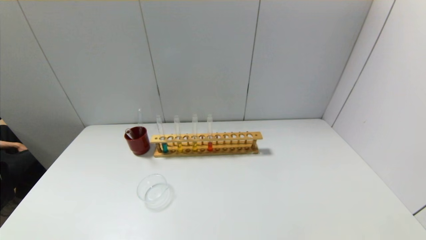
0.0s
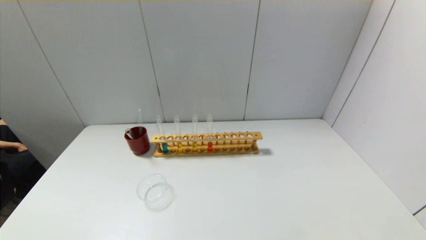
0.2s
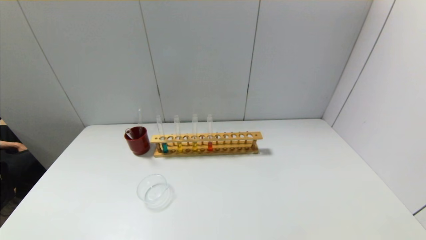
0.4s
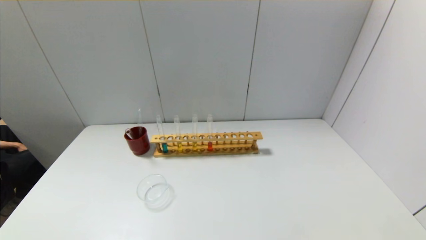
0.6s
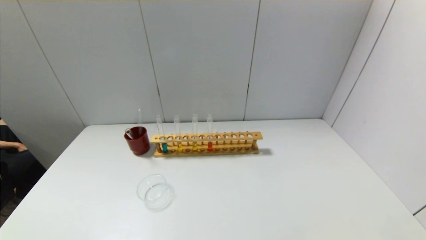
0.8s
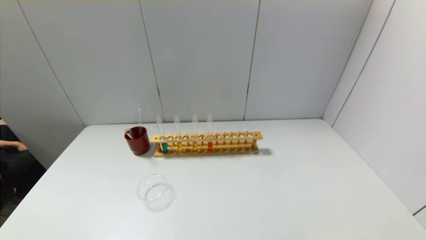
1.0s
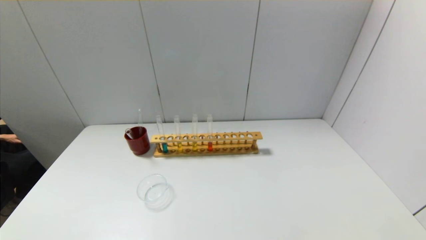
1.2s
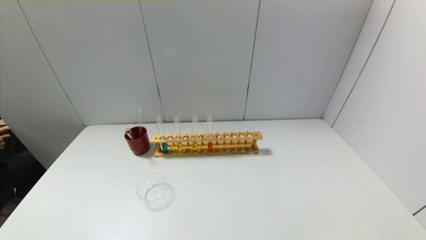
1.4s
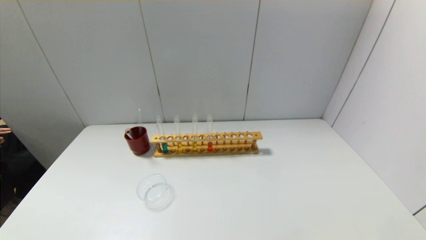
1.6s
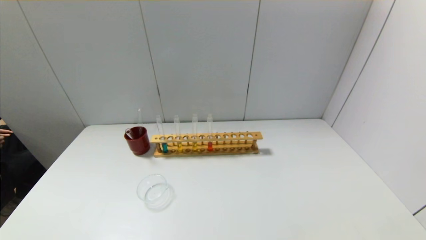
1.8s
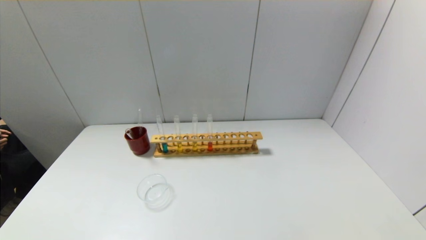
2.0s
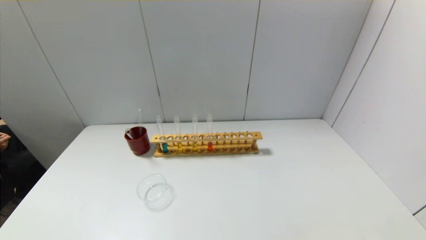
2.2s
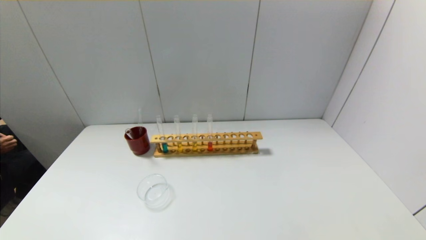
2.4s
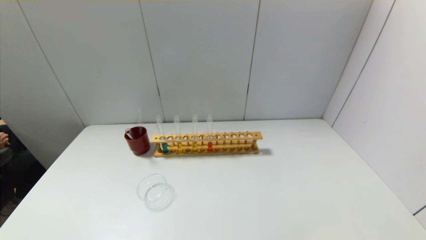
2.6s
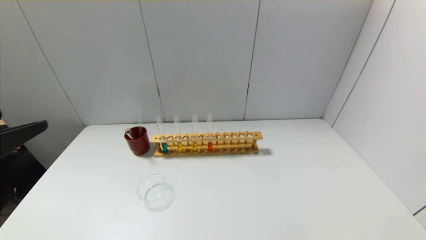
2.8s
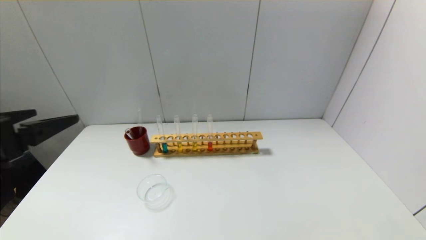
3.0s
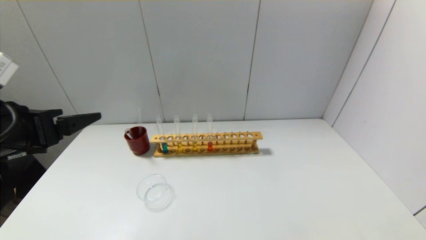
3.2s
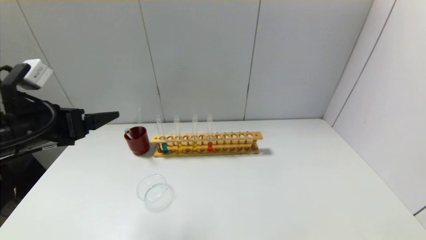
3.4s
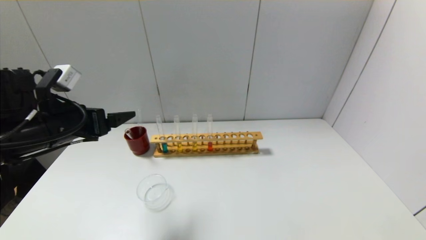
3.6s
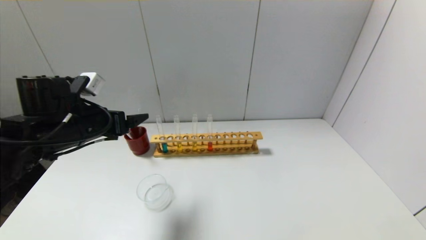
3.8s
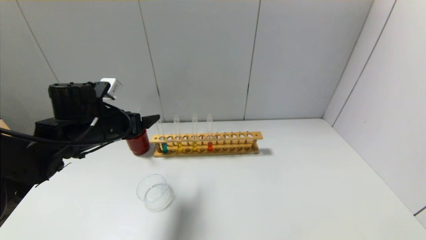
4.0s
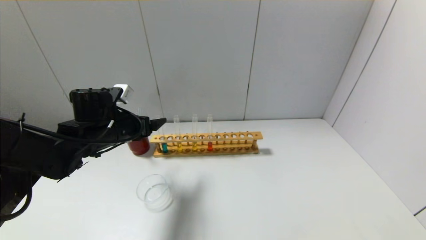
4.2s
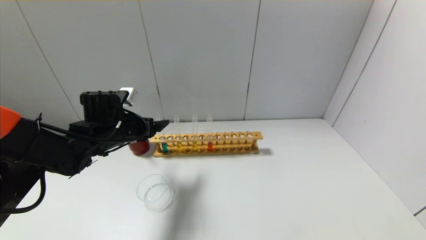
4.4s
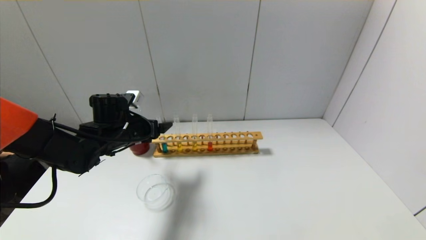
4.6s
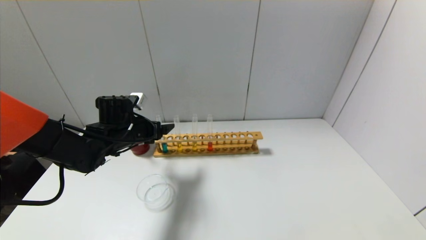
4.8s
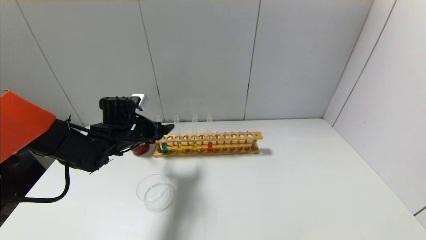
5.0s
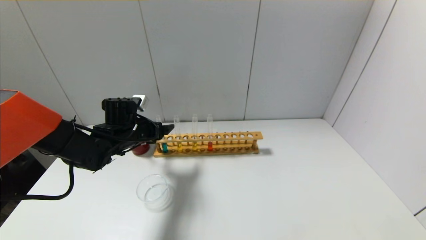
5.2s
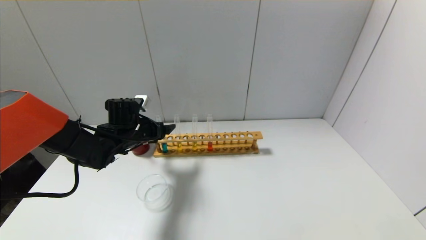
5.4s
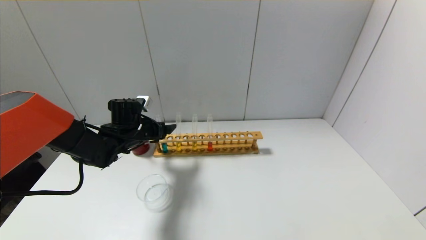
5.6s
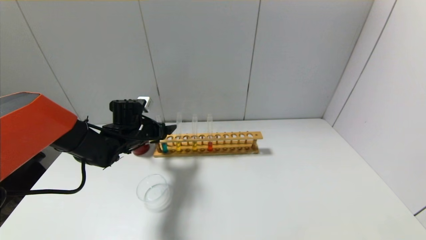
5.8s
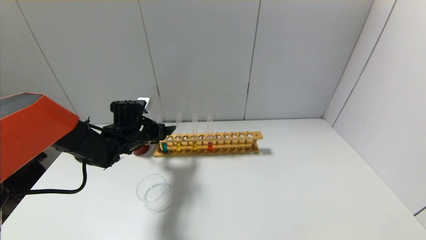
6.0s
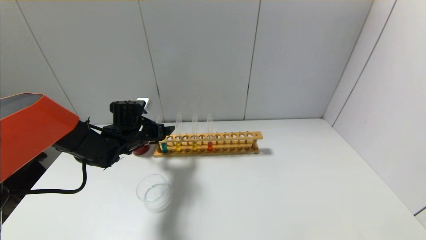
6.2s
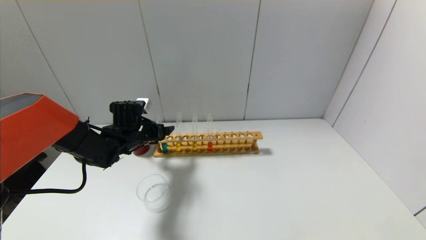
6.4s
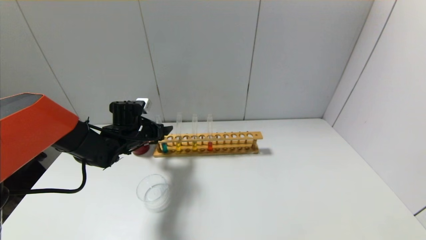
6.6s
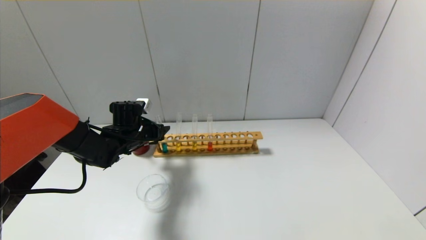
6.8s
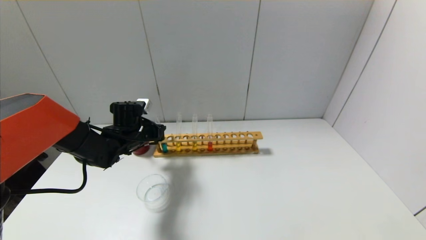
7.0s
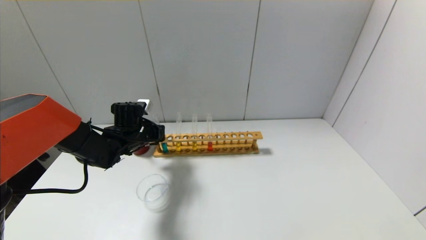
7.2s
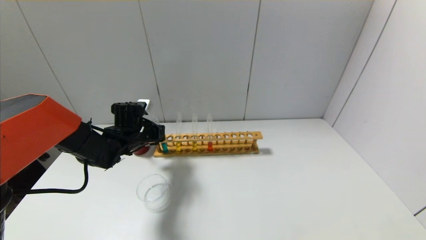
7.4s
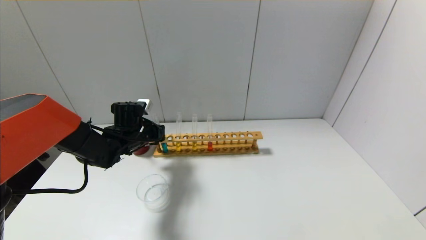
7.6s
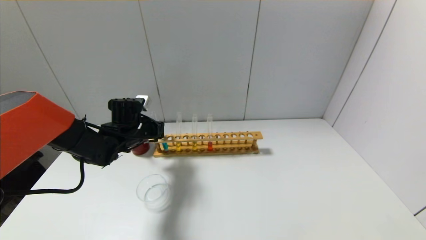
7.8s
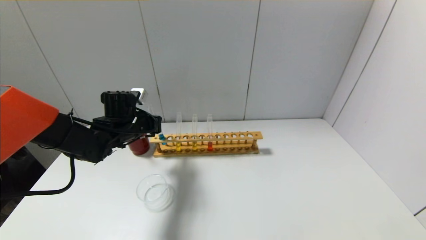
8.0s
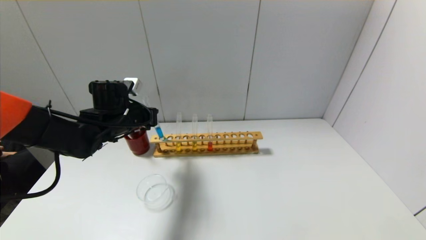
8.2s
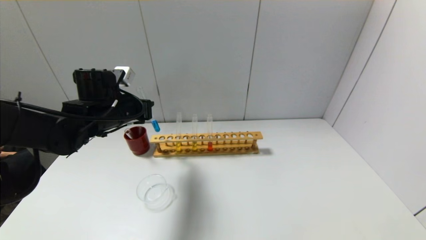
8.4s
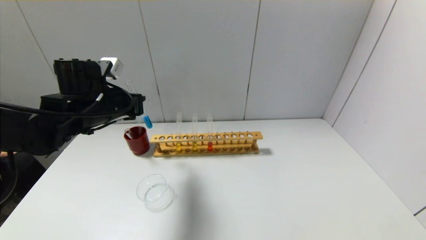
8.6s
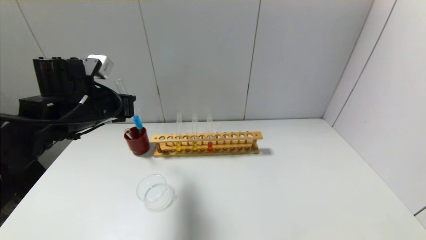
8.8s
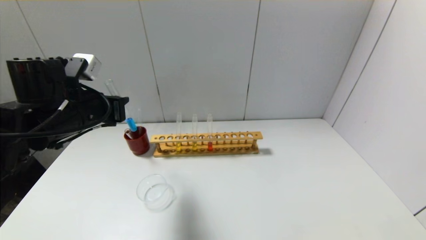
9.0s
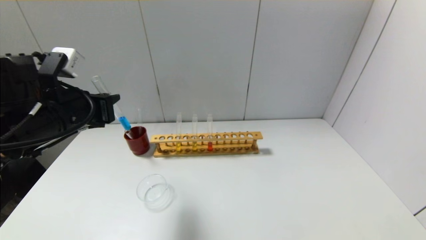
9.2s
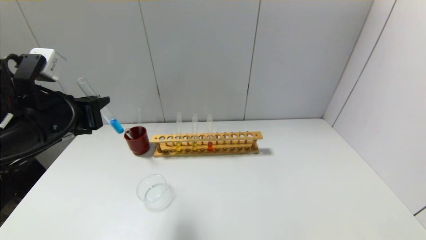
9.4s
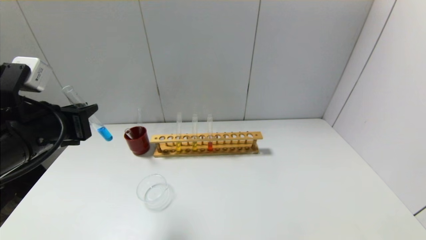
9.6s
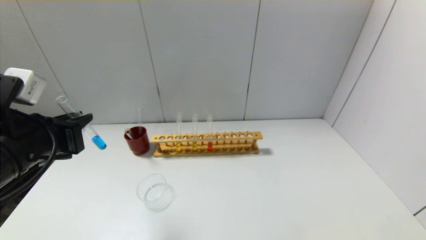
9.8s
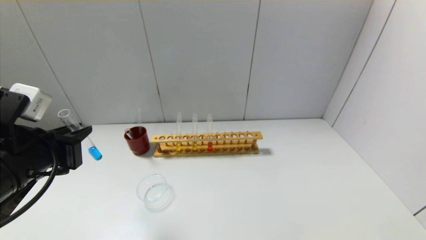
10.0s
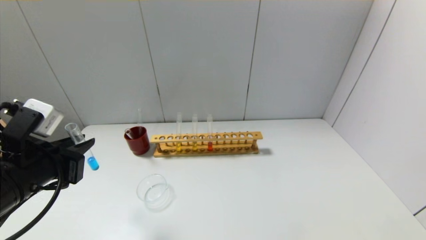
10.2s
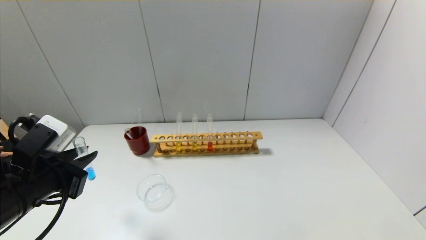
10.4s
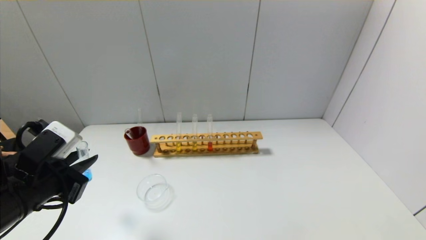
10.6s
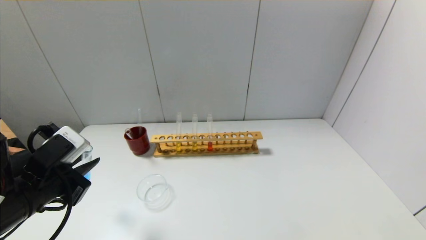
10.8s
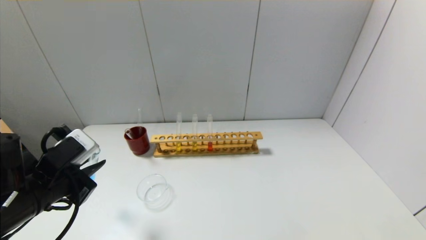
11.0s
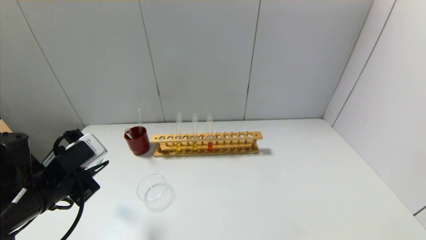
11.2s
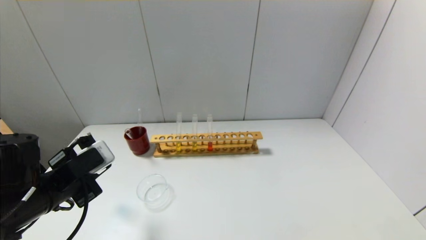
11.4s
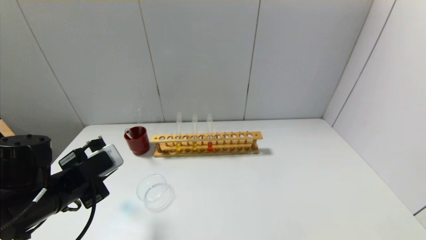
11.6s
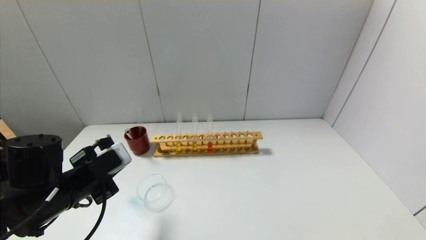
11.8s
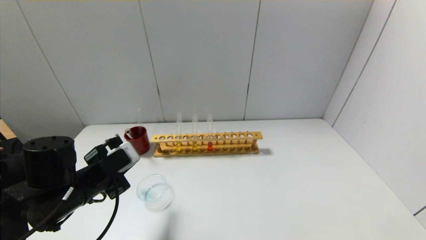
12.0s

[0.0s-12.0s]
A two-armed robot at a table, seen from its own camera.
Step, 0.0s to 7.2s: Grasp the blue reagent with the left gripper.
1.6s to 3.0s: The left gripper goes about 25 cm forward and upward.
3.0s to 4.4s: The left gripper goes roughly 25 cm forward and downward.
4.4s to 6.0s: The left gripper moves forward, about 5 cm.
6.0s to 7.6s: The left gripper closes its fingers.
7.6s to 9.0s: The left gripper heads upward and backward, covering some 20 cm.
9.0s to 10.4s: The left gripper moves backward and downward, approximately 10 cm.
10.4s to 12.0s: The left gripper is displaced forward and downward by about 5 cm.

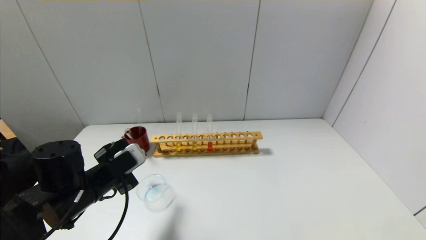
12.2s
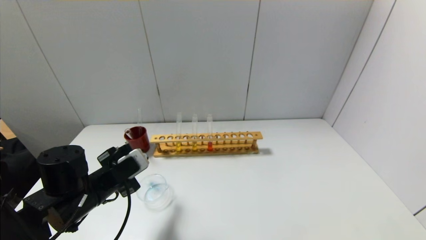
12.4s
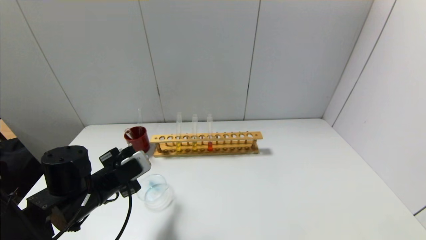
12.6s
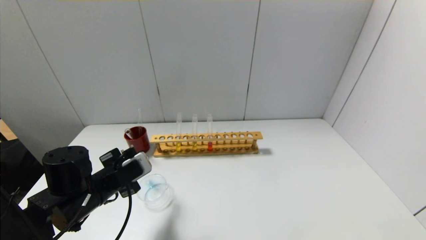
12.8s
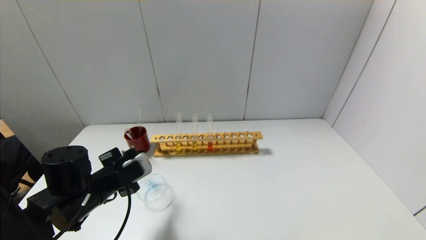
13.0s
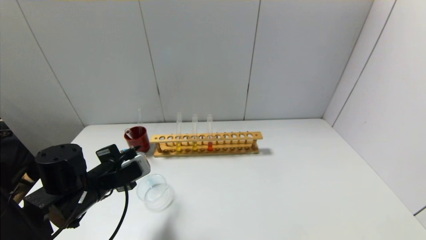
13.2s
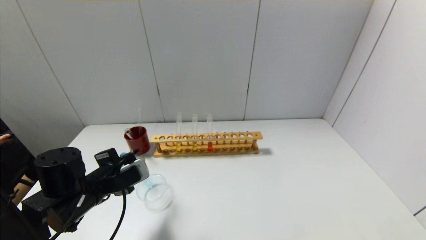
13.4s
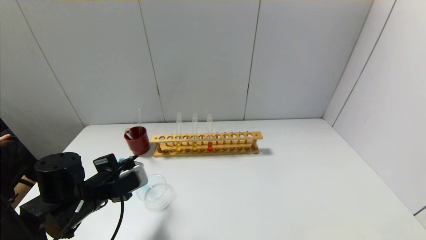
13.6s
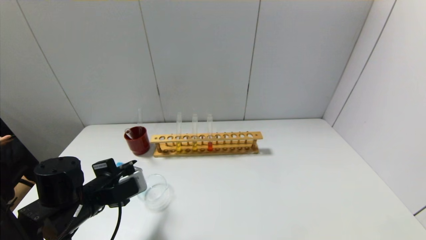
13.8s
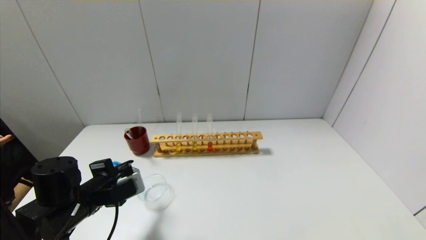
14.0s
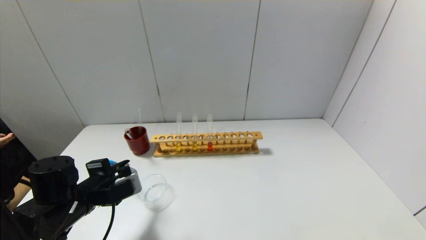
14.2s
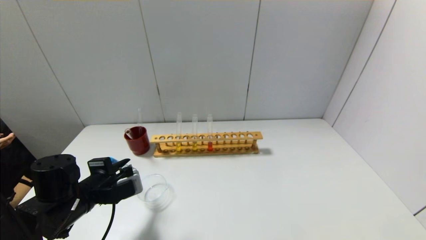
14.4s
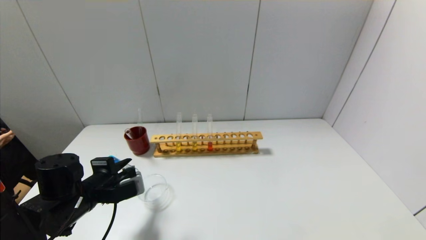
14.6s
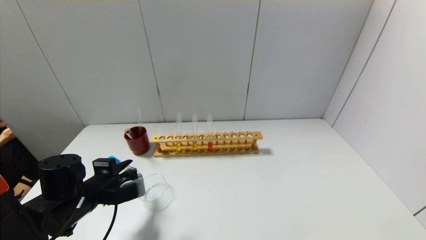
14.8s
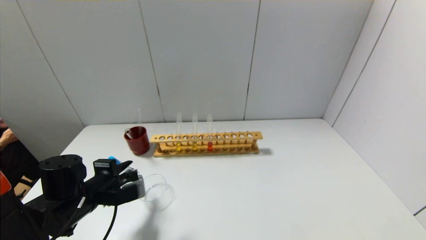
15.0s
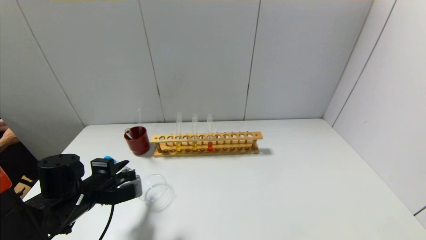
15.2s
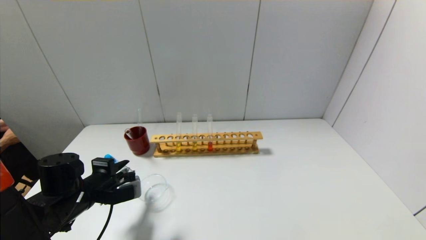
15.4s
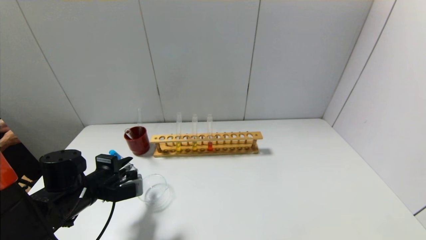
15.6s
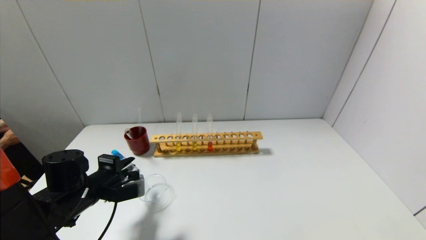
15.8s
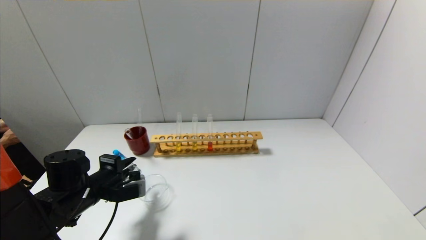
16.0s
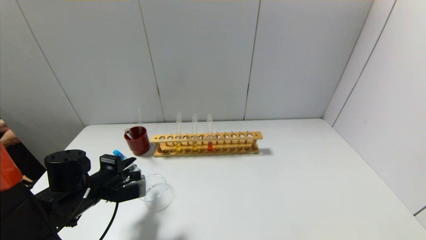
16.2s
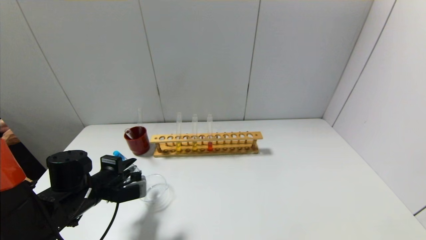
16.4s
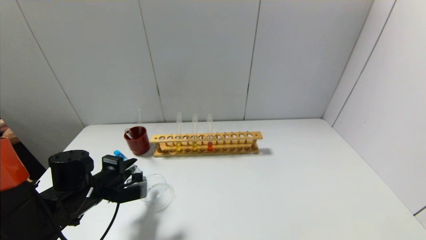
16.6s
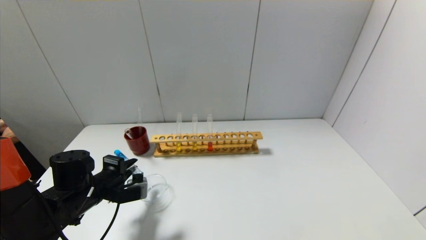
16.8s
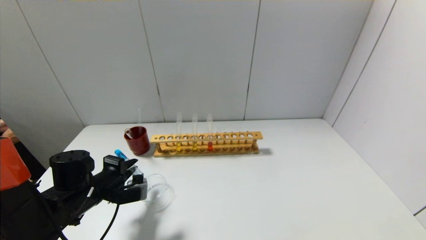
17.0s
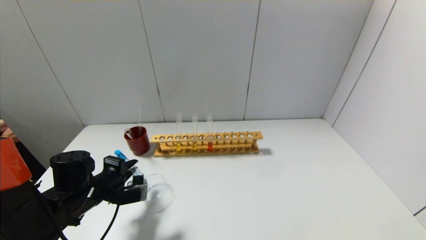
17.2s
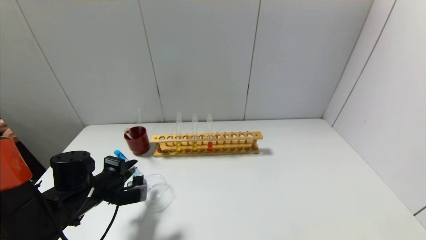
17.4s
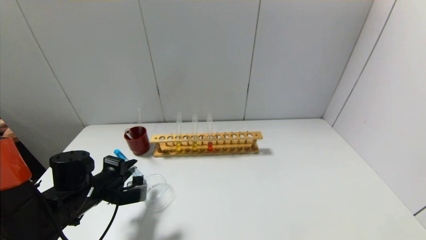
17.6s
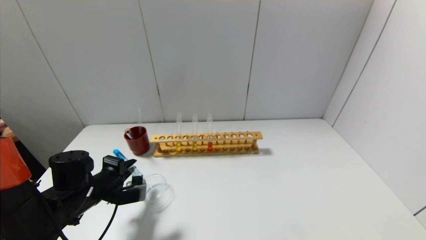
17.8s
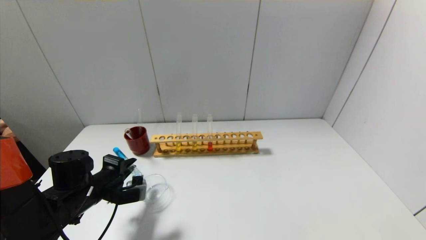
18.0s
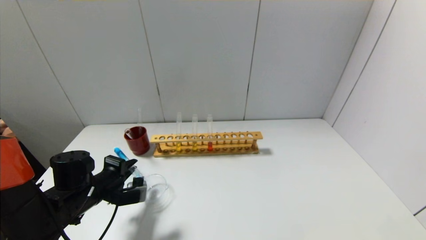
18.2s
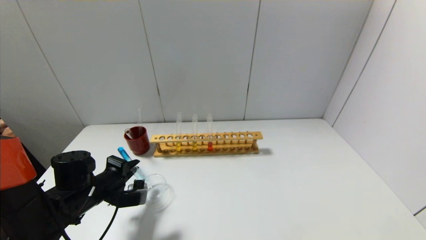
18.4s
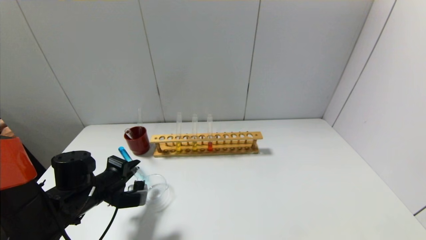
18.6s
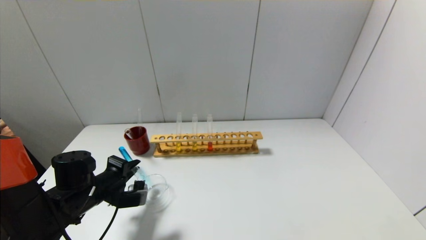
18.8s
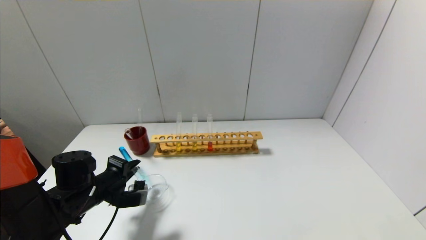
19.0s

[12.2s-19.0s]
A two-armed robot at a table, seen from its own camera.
12.2s to 13.6s: The grippers make only small movements.
13.6s to 15.0s: The grippers move only a little.
15.0s to 19.0s: The grippers move only a little.
